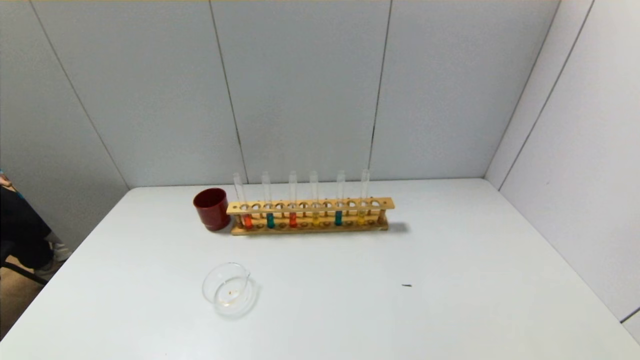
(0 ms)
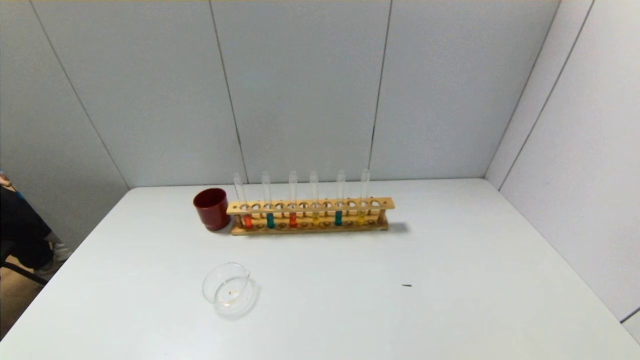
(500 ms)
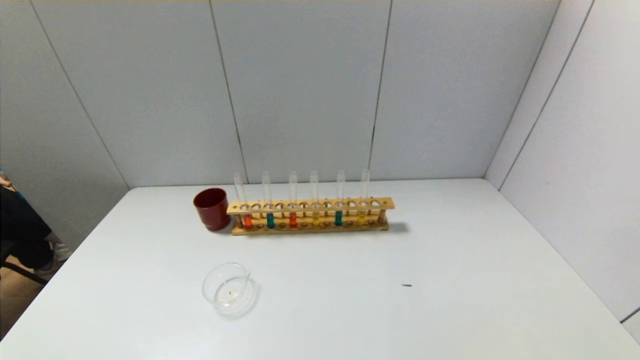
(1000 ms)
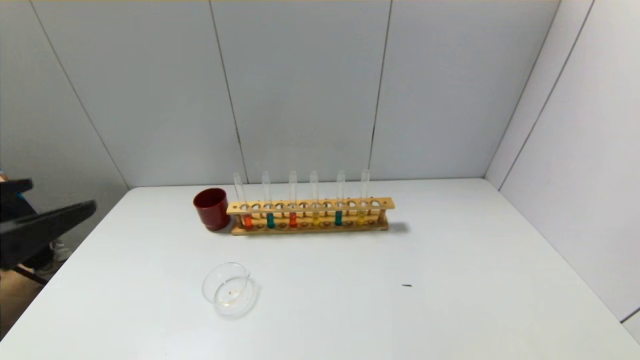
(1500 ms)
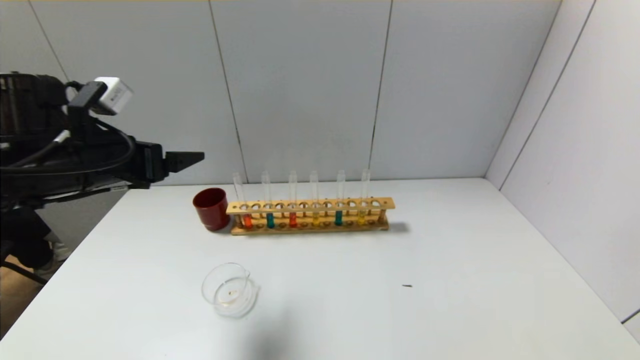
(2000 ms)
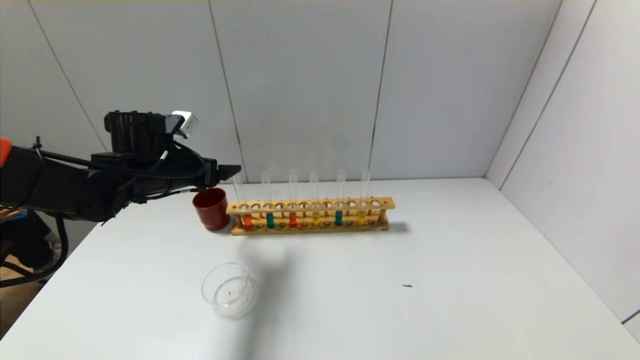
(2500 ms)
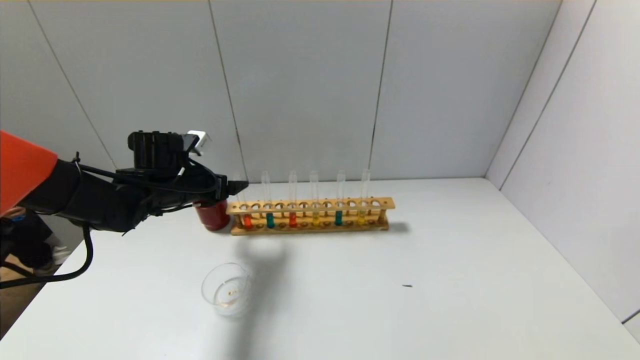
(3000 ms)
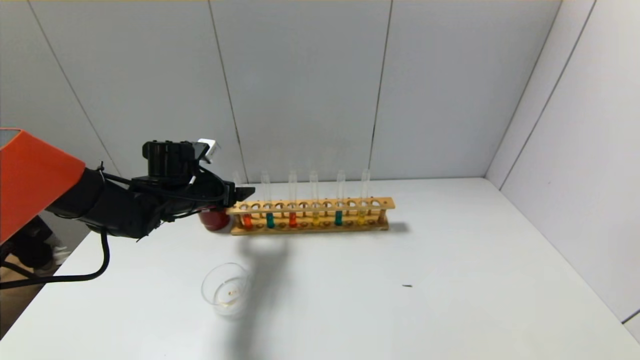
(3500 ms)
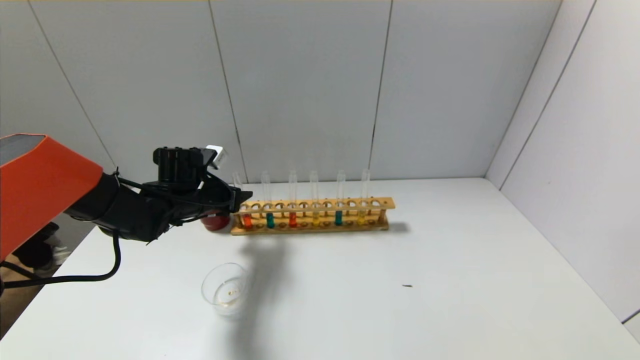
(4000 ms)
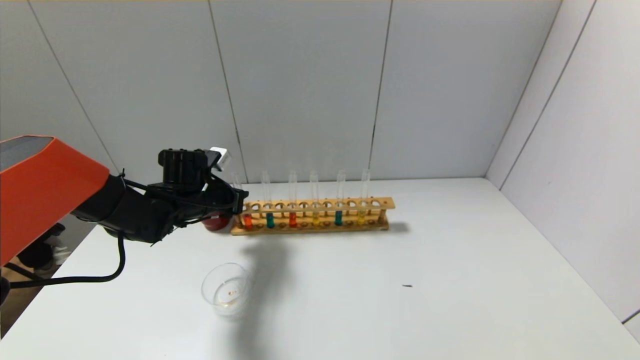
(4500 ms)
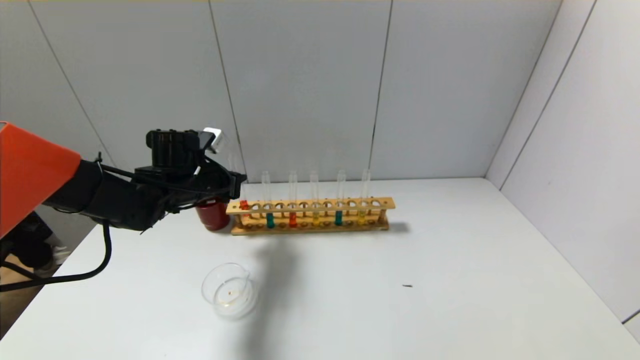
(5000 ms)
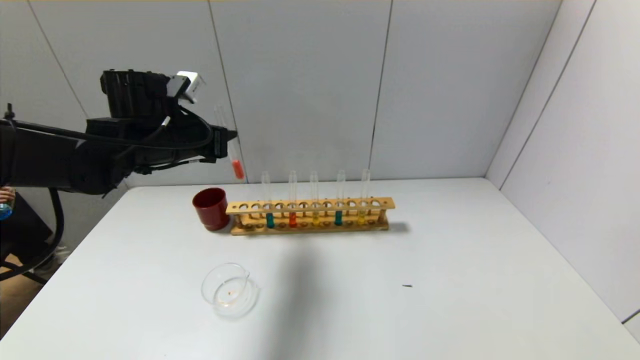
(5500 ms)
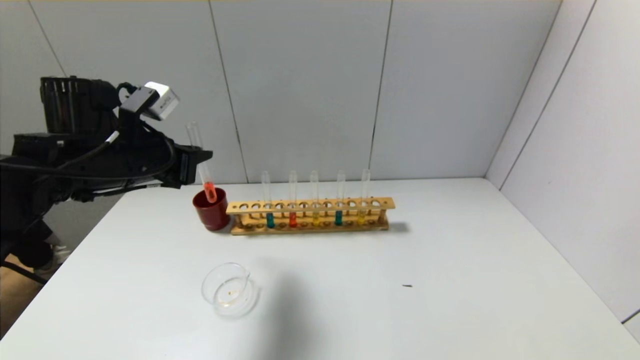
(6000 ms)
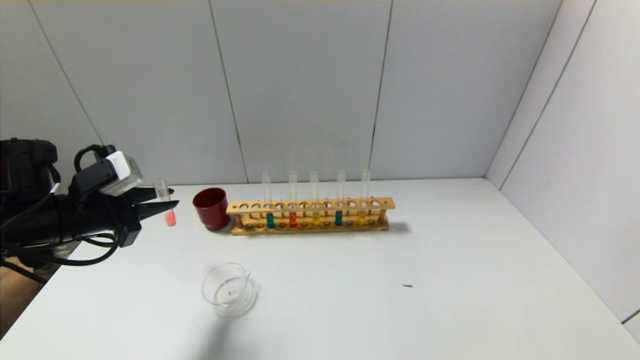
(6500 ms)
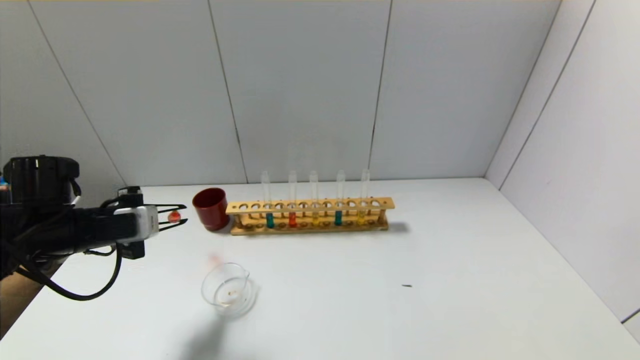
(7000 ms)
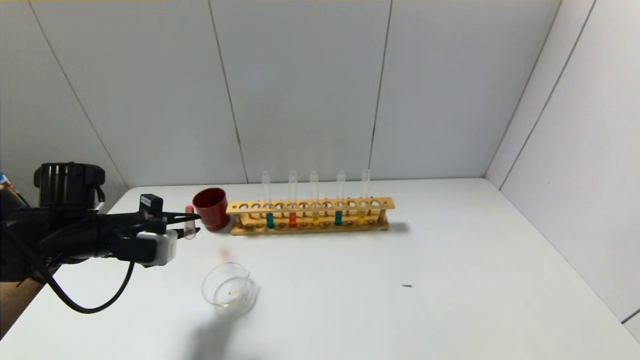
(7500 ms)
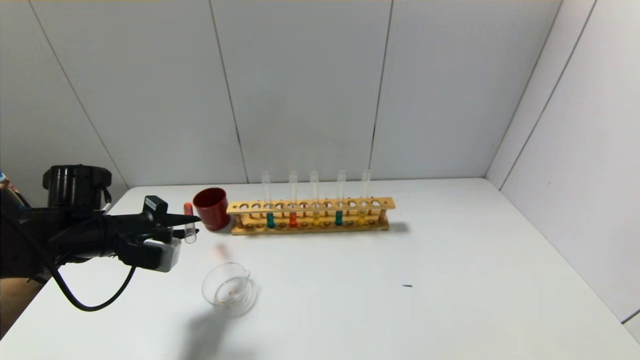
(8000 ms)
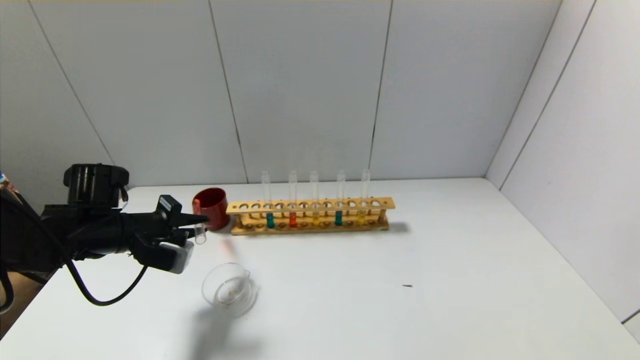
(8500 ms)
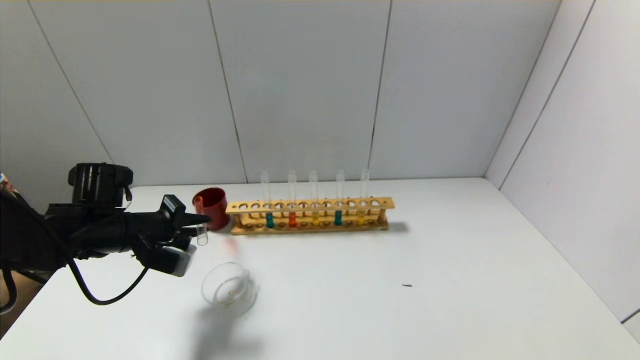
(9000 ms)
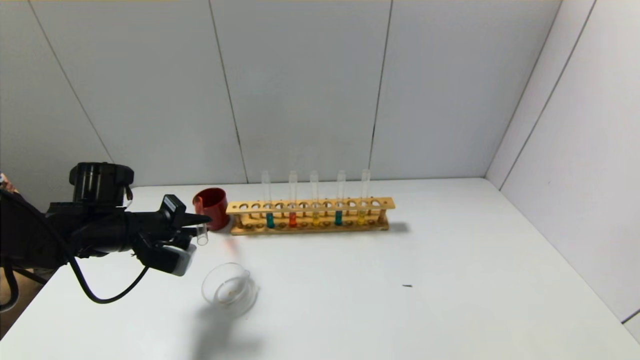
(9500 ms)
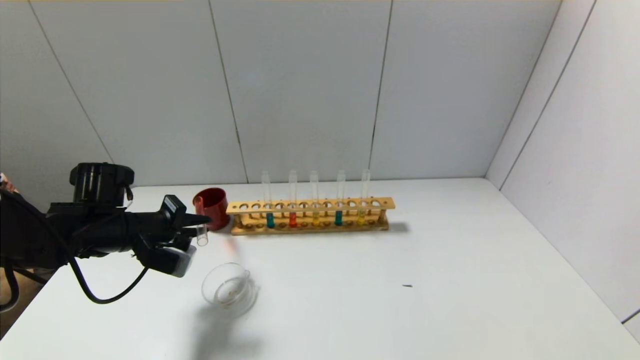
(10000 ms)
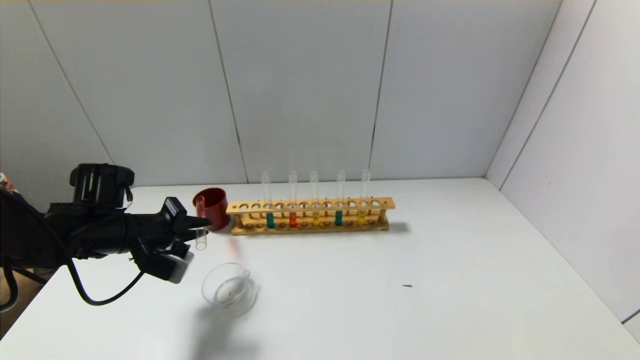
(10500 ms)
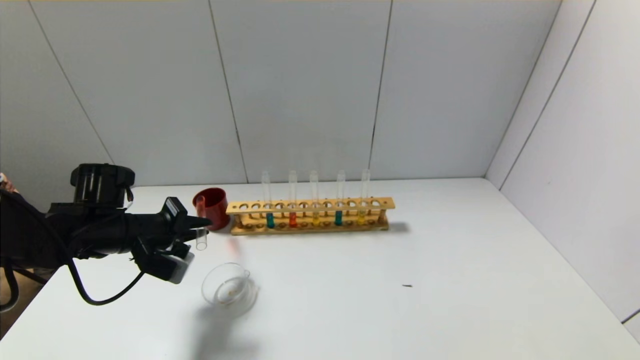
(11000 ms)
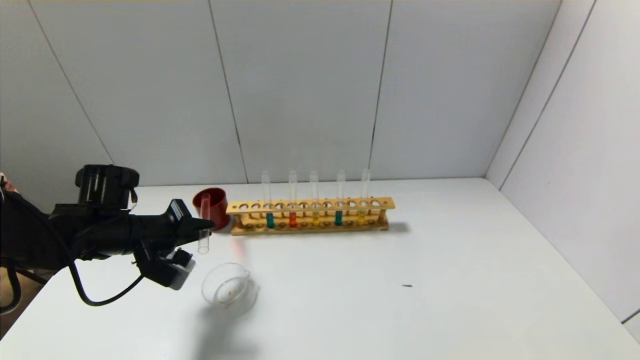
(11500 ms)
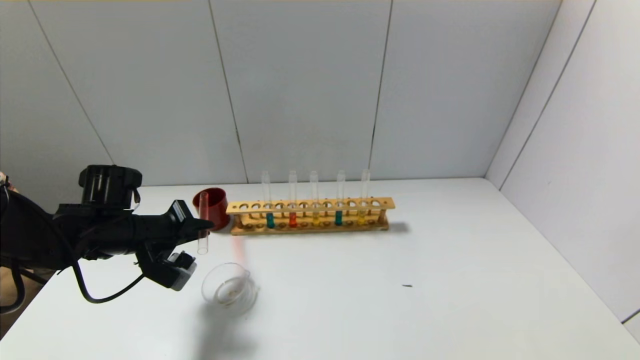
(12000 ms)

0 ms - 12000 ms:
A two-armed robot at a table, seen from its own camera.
Step, 0 ms - 4000 ms: Grasp the red reagent with the left gripper.
0 ms - 2000 ms: The left gripper travels forward and upward by about 35 cm.
2000 ms - 4000 ms: The left gripper is displaced downward and forward by some 15 cm, and closes.
4000 ms - 6000 ms: The left gripper travels upward and backward by about 15 cm, and closes its fingers.
6000 ms - 8000 ms: The left gripper heads downward and to the left, covering approximately 10 cm.
8000 ms - 10000 ms: The grippers move only a little.
10000 ms - 12000 ms: The grippers make only small movements.

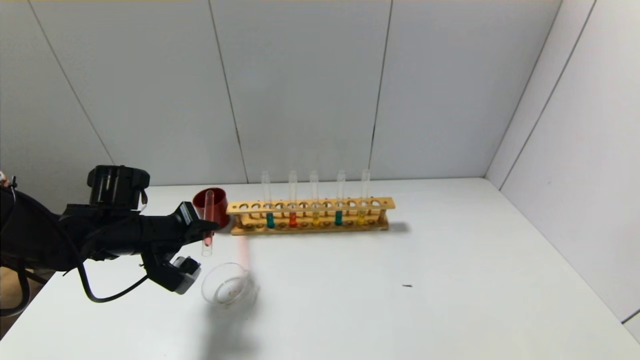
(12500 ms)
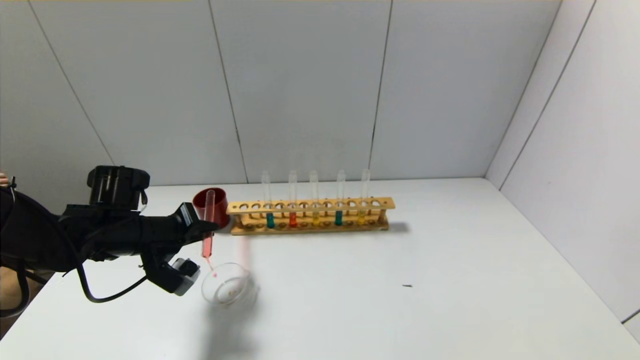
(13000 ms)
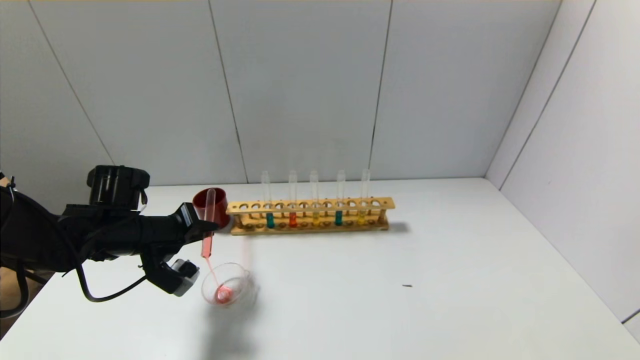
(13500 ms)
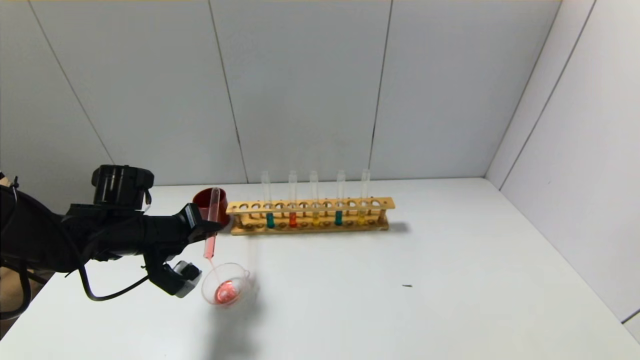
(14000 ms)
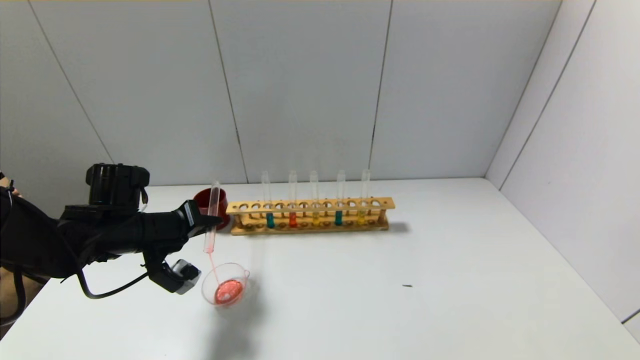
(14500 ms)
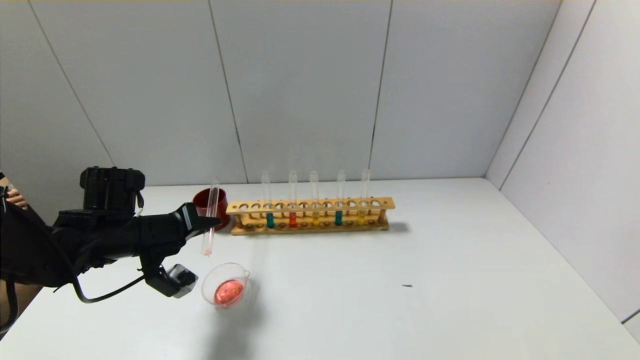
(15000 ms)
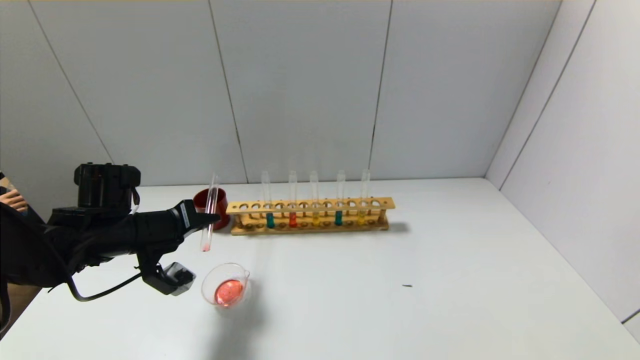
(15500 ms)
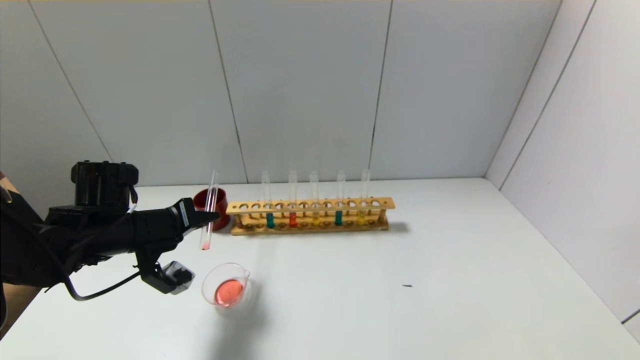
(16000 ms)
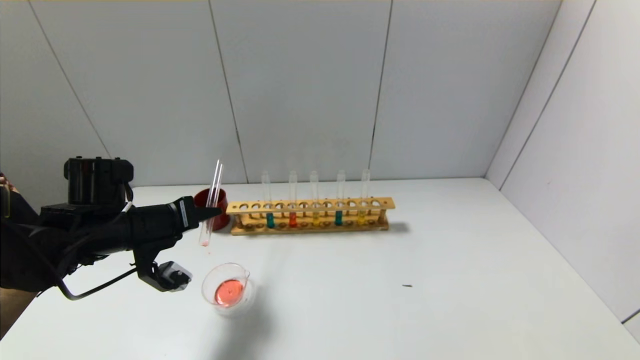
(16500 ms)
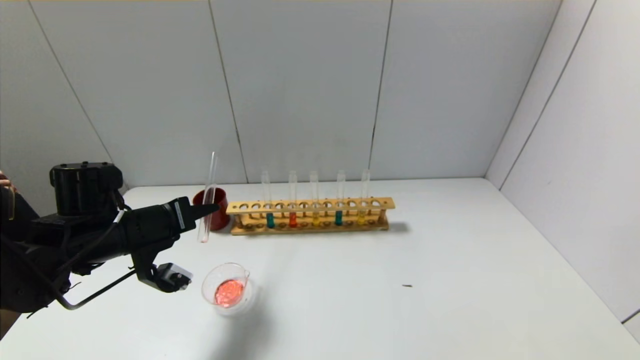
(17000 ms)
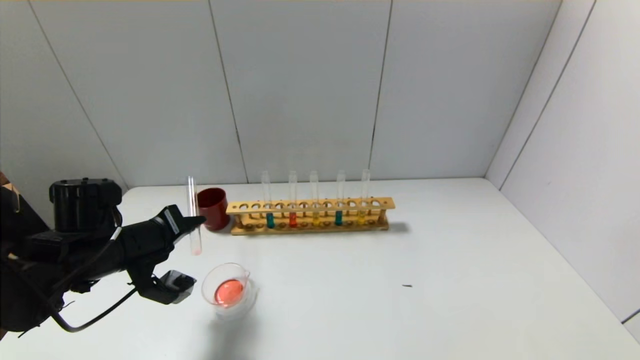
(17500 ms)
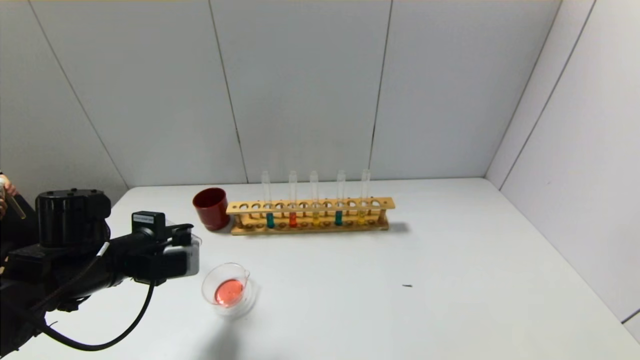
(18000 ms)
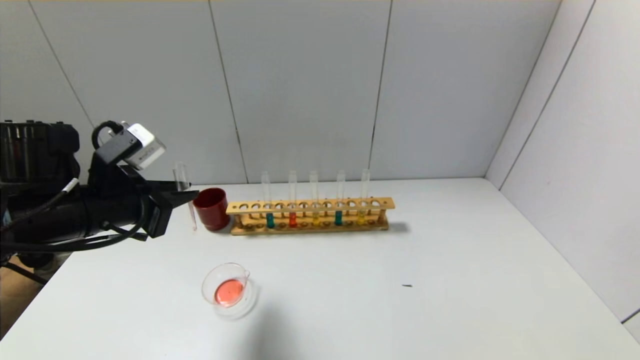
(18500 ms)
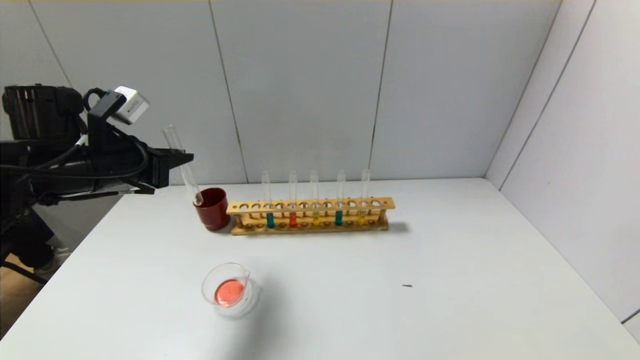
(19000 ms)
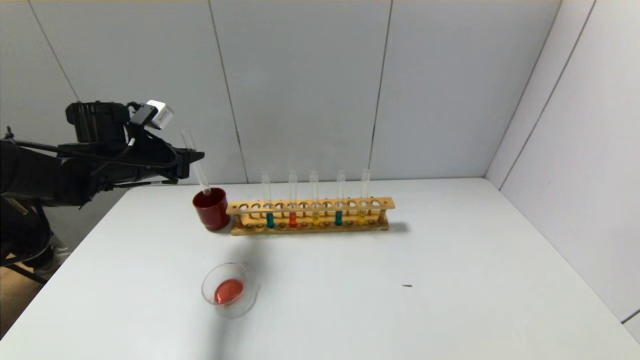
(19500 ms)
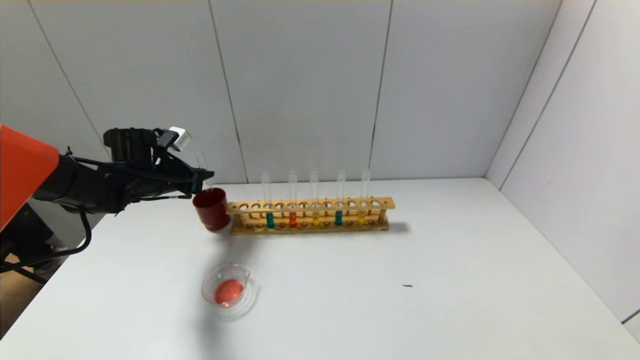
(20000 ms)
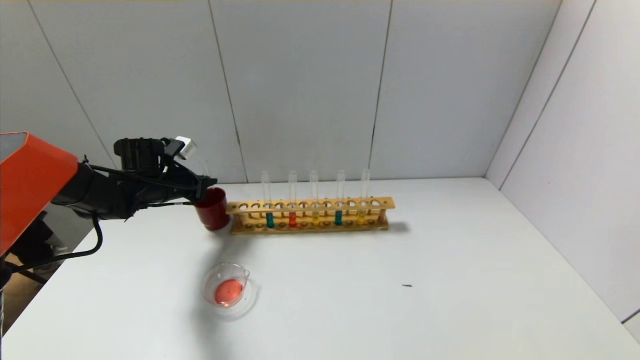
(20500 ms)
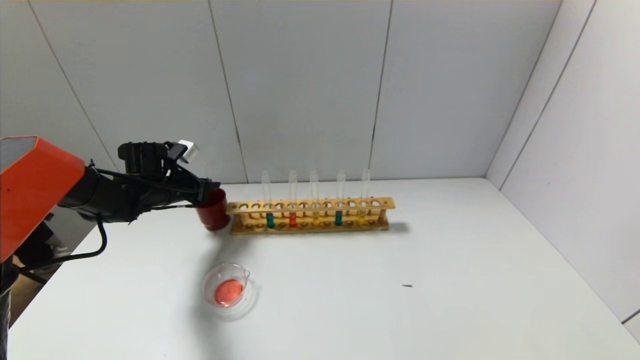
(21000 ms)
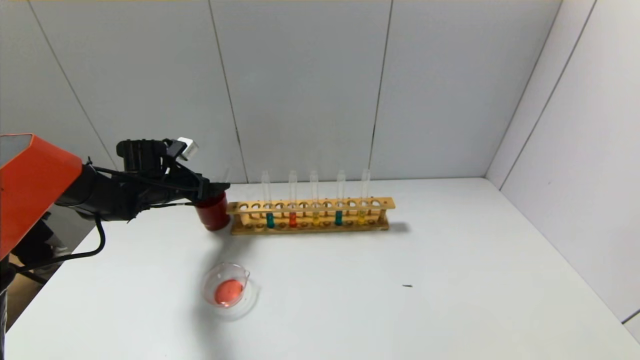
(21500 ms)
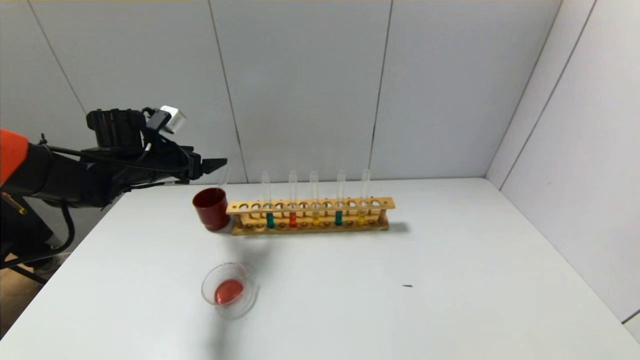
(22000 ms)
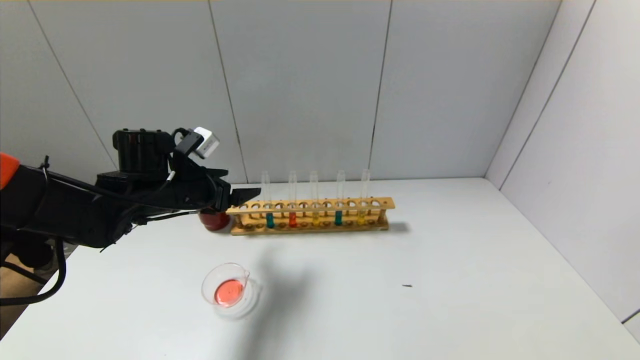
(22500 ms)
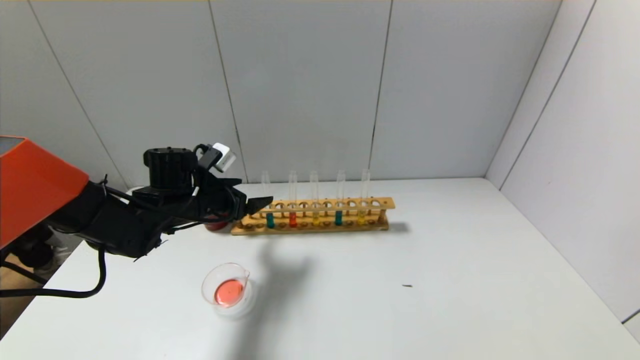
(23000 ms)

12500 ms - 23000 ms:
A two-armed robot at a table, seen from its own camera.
Step, 12500 ms - 17500 ms: Pour the red reagent into the graduated cylinder with the left gripper.
Step, 18000 ms - 21000 ms: Place the test tube into the brown cup with the left gripper.
12500 ms - 14500 ms: The grippers move only a little.
14500 ms - 16500 ms: There are only small adjustments of the grippers.
16500 ms - 19000 ms: The left gripper shifts some 10 cm upward.
19000 ms - 21000 ms: The left gripper is displaced forward and downward by roughly 20 cm.
21000 ms - 23000 ms: The left gripper travels to the right and backward by approximately 10 cm, and opens up.
